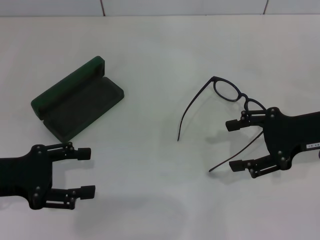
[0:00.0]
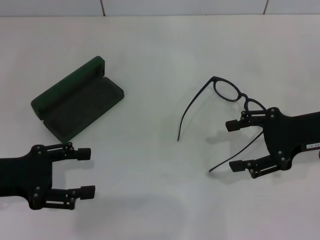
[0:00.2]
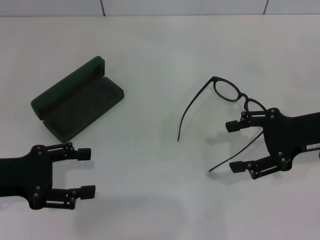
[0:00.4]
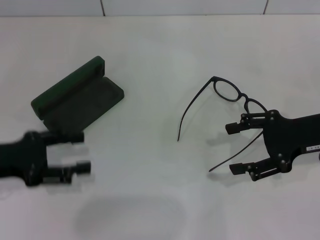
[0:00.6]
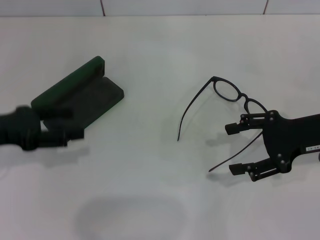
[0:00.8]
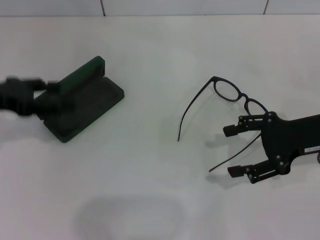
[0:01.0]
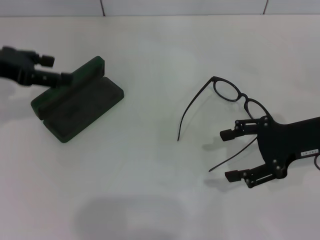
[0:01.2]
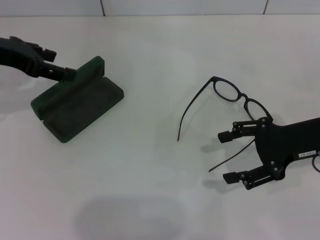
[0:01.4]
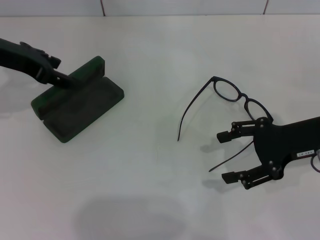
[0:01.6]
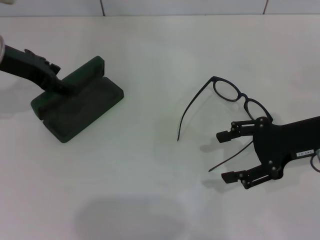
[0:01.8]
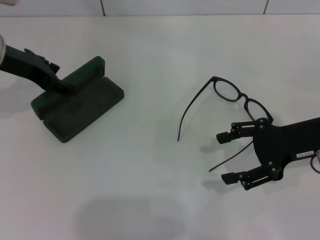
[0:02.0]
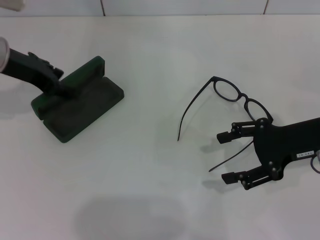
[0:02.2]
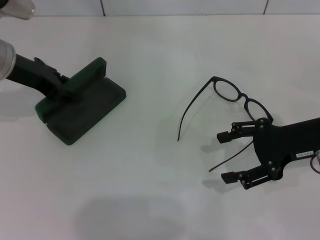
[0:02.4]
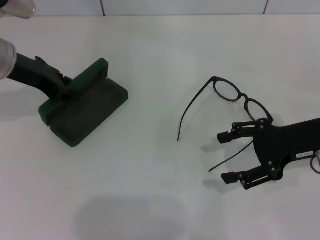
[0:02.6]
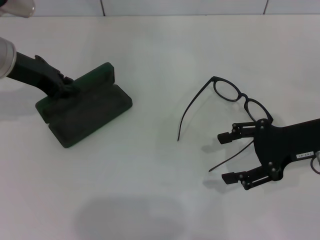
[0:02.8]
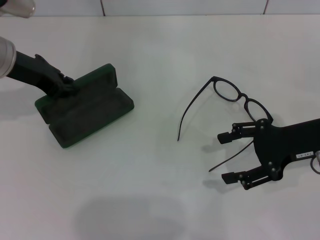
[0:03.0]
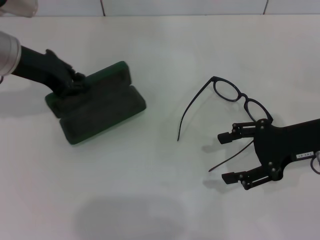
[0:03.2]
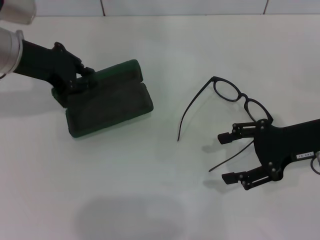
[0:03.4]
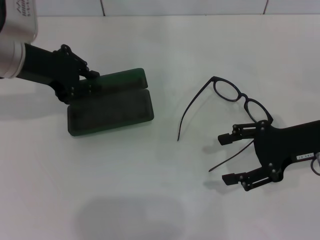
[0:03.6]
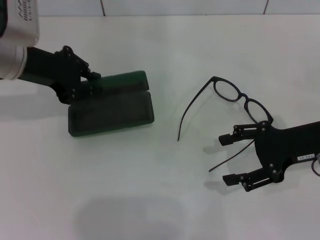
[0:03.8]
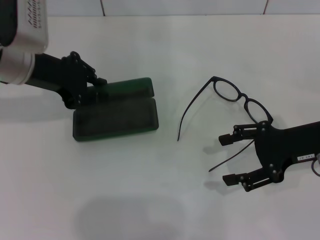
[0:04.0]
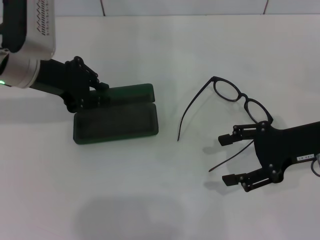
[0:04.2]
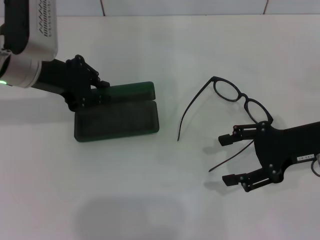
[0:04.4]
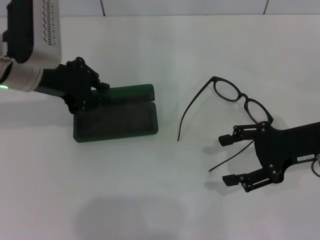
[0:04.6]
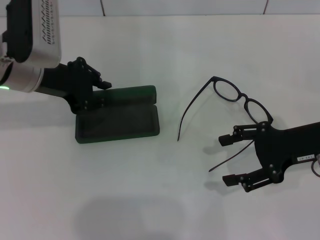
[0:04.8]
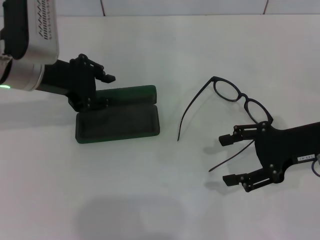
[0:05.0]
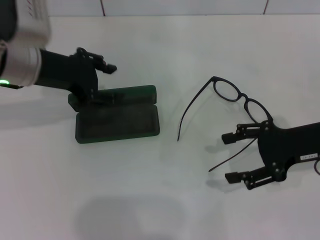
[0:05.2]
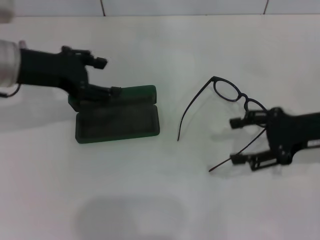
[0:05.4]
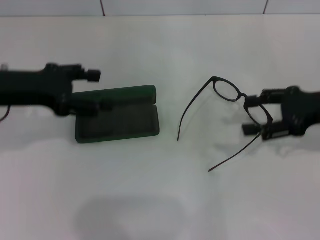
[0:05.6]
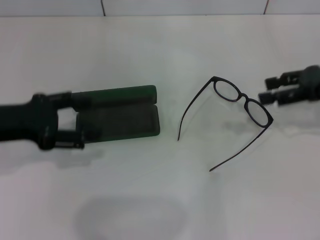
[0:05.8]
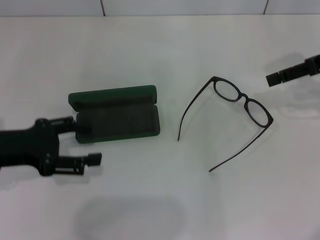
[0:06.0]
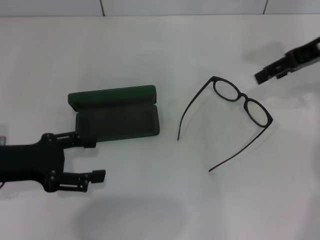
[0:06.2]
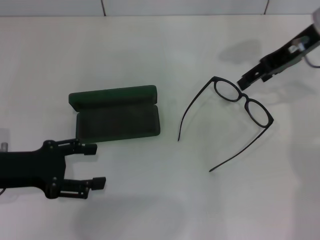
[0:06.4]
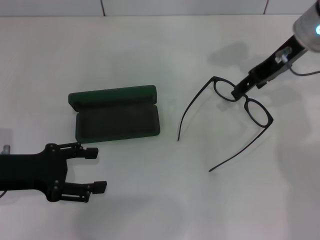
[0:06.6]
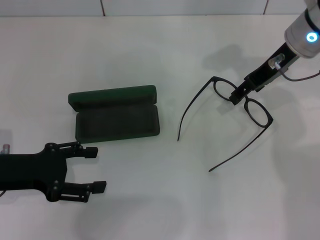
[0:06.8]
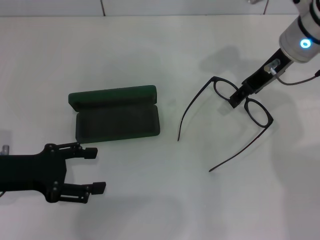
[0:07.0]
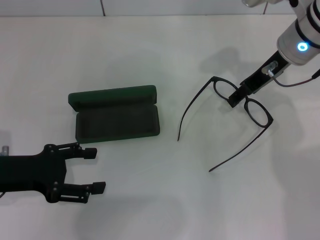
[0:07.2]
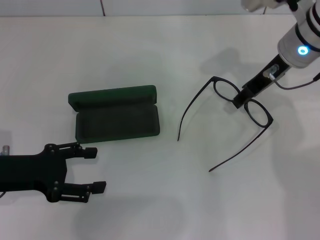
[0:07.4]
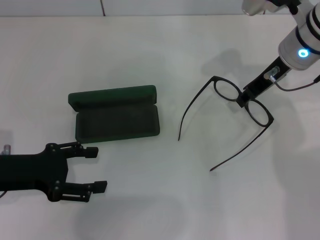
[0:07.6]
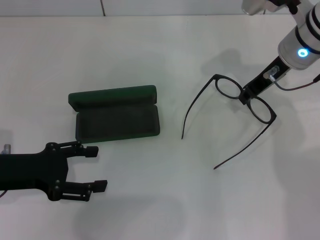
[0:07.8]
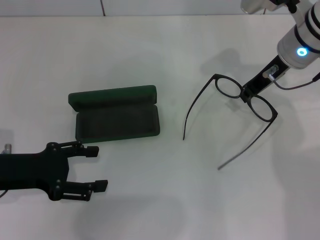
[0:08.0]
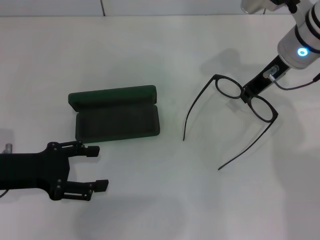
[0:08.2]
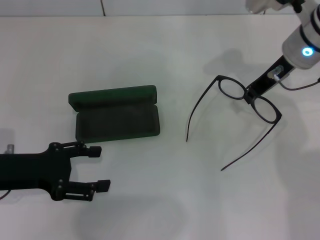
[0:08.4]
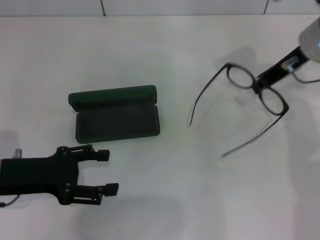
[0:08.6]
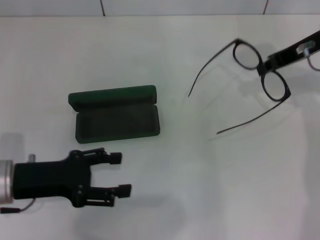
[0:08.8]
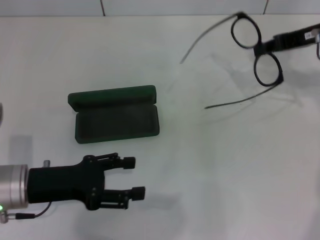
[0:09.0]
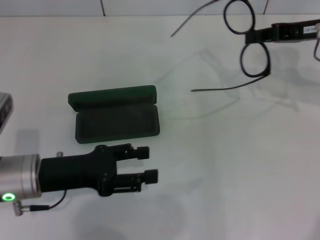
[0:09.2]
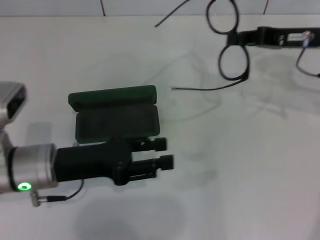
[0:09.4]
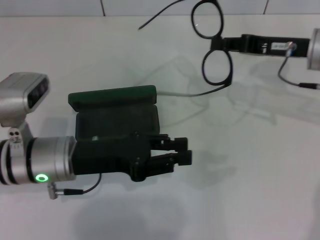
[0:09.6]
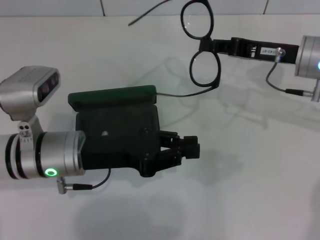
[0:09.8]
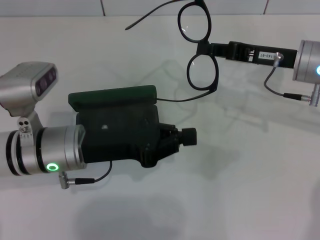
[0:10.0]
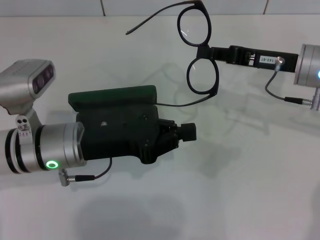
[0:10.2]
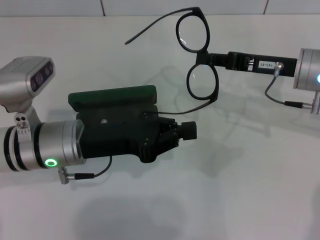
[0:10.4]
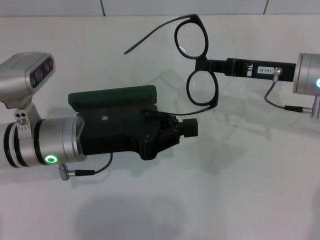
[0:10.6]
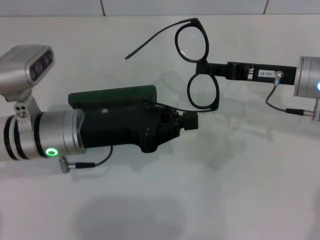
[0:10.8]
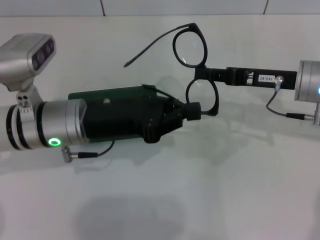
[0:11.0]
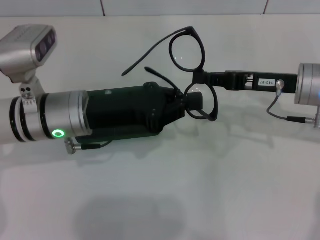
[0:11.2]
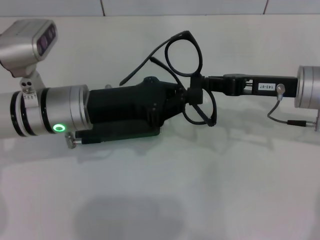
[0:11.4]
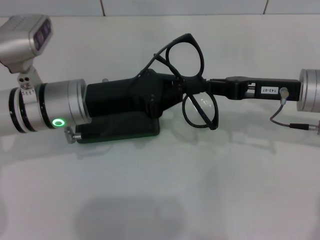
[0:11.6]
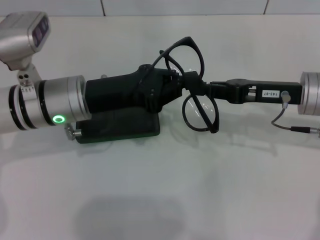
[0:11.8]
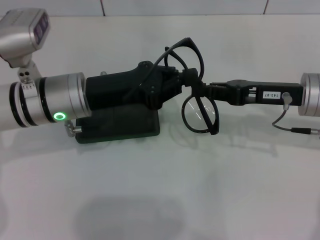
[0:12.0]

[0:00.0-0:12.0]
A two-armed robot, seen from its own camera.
Step, 0:00.0 to 0:02.4: Grab the glasses case with your left hand.
Step, 0:02.8 to 0:04.8: Place the glasses case in the center of the table with your left hand.
Step, 0:05.0 to 0:08.0: Grab the eyeglass frame with your right hand.
0:00.0 to 0:01.6: The left gripper moves forward and upward, roughly 20 cm.
0:01.6 to 0:03.0: The left gripper closes up.
0:04.4 to 0:06.0: The left gripper heads backward, to the left and downward, covering roughly 15 cm, and opens its fingers. Meanwhile the right gripper shifts some 15 cm upward and forward.
0:06.0 to 0:07.6: The right gripper travels to the left by approximately 10 cm.
0:07.6 to 0:09.0: The right gripper is displaced to the right by roughly 10 cm, and closes its fingers; the left gripper shifts by approximately 5 cm.
0:09.0 to 0:10.4: The right gripper is displaced downward by about 5 cm; the left gripper goes approximately 5 cm to the right, and closes.
0:10.4 to 0:12.0: The left gripper shifts by roughly 5 cm.

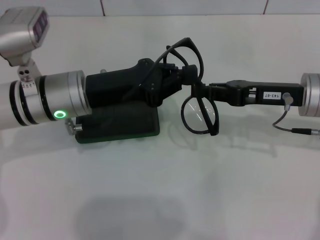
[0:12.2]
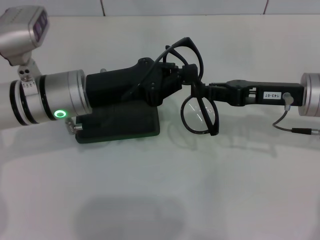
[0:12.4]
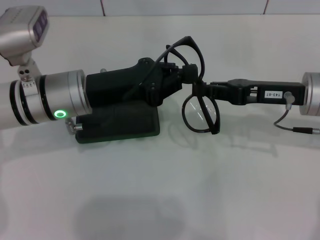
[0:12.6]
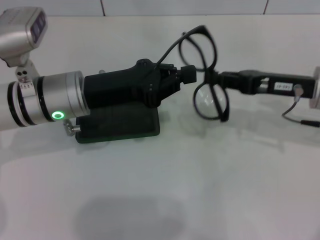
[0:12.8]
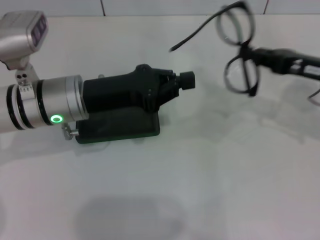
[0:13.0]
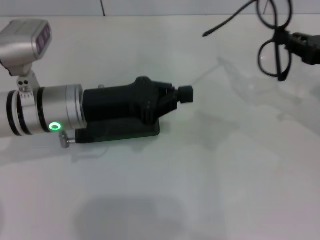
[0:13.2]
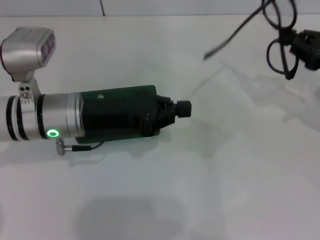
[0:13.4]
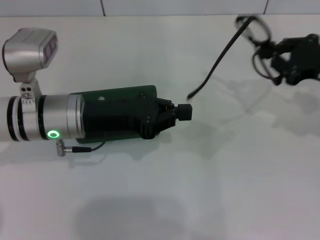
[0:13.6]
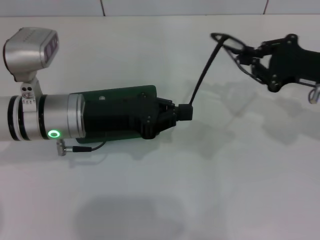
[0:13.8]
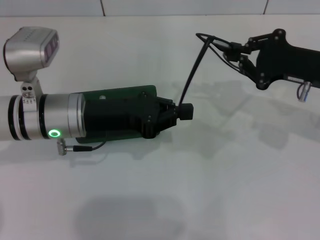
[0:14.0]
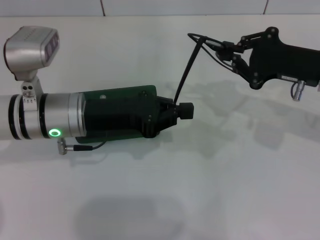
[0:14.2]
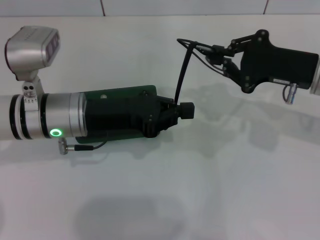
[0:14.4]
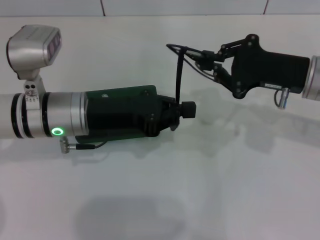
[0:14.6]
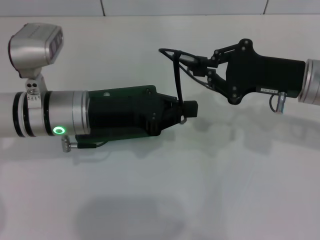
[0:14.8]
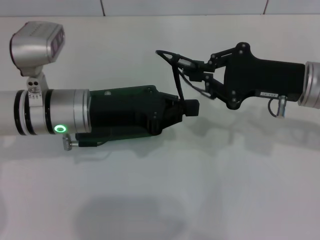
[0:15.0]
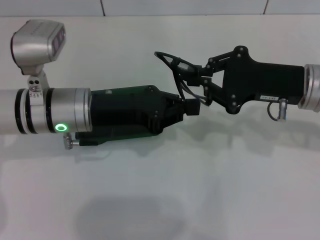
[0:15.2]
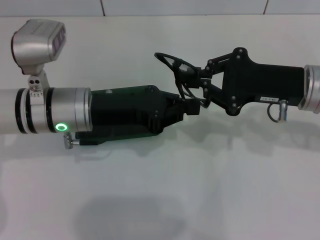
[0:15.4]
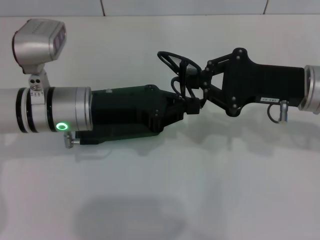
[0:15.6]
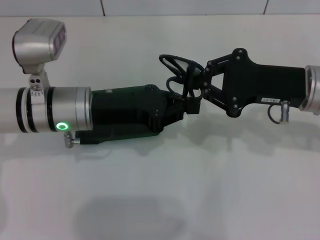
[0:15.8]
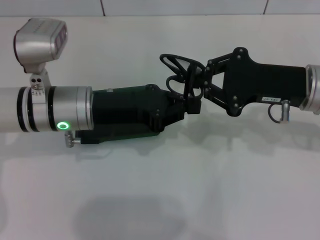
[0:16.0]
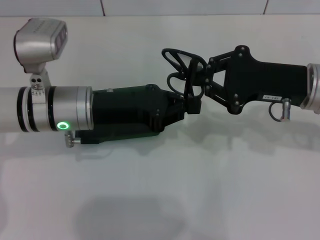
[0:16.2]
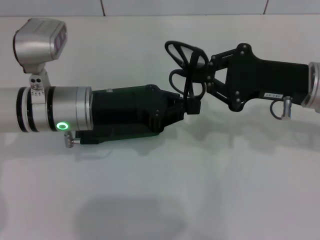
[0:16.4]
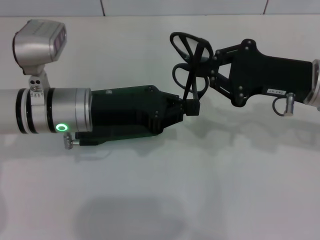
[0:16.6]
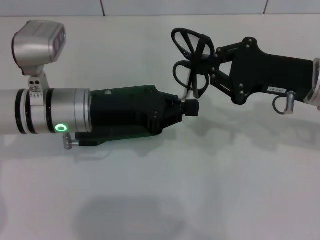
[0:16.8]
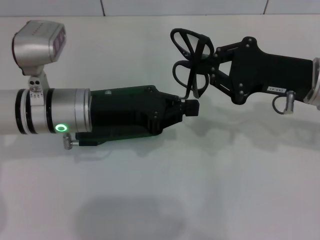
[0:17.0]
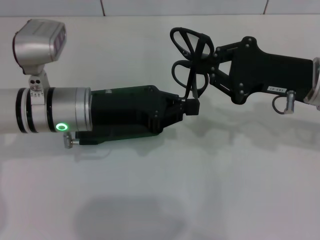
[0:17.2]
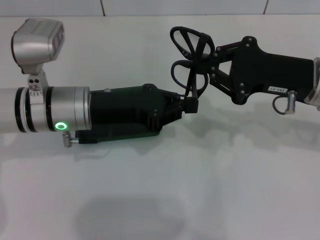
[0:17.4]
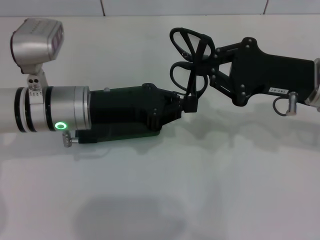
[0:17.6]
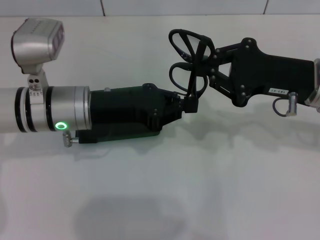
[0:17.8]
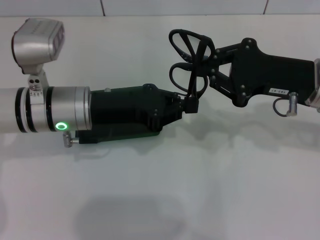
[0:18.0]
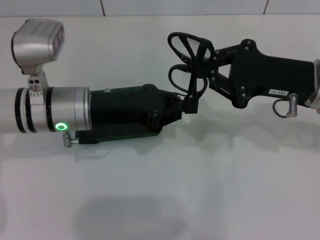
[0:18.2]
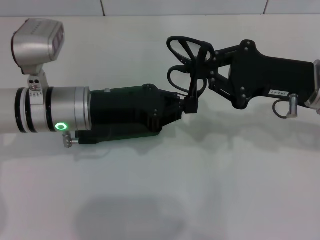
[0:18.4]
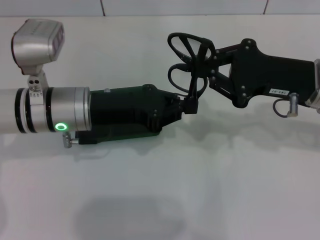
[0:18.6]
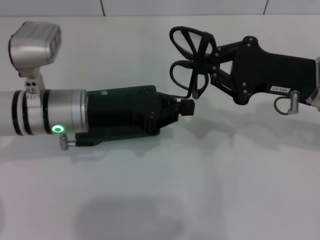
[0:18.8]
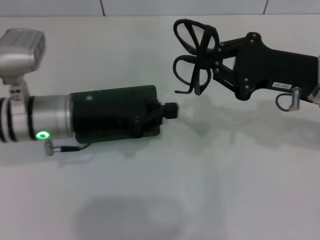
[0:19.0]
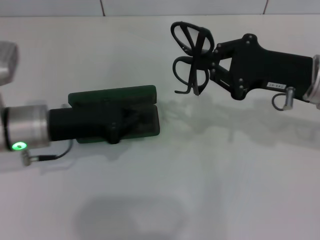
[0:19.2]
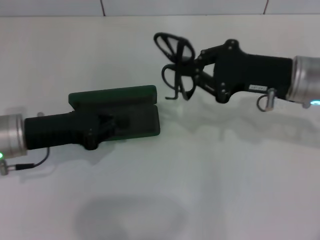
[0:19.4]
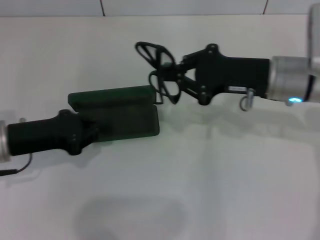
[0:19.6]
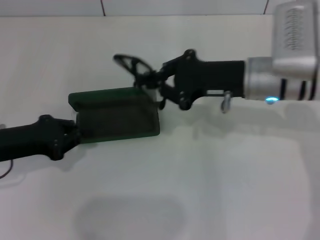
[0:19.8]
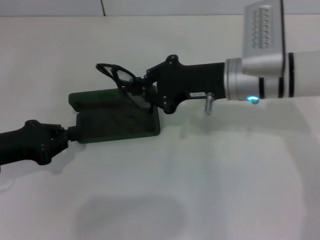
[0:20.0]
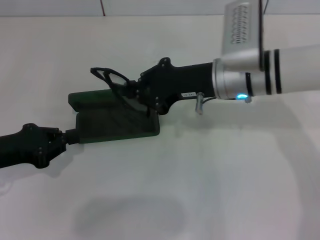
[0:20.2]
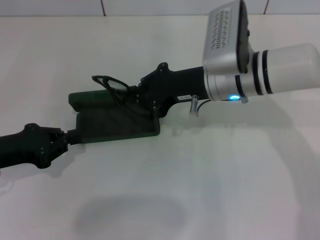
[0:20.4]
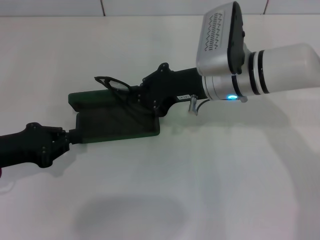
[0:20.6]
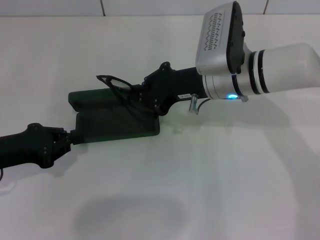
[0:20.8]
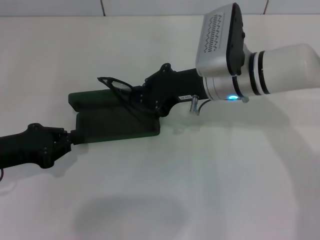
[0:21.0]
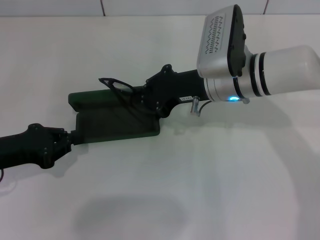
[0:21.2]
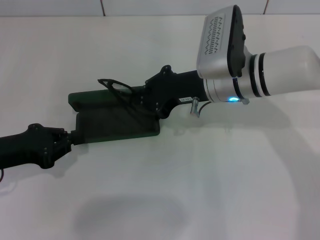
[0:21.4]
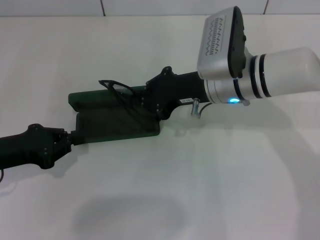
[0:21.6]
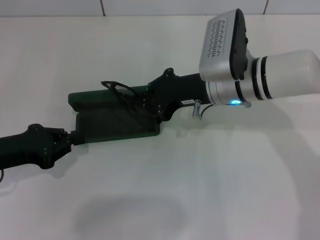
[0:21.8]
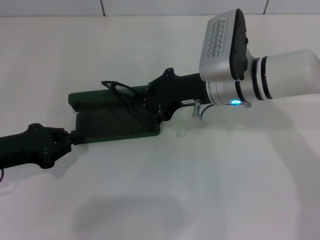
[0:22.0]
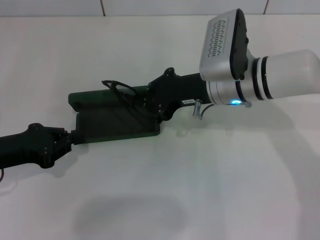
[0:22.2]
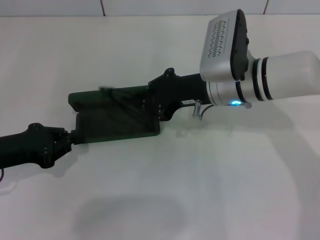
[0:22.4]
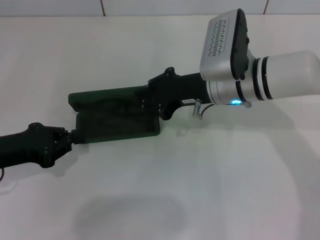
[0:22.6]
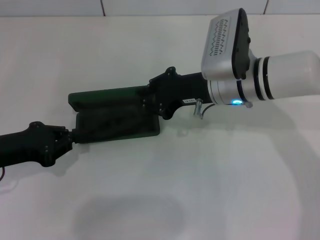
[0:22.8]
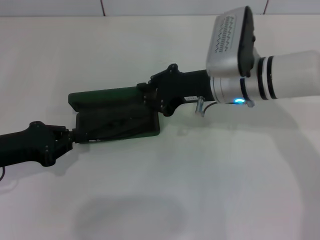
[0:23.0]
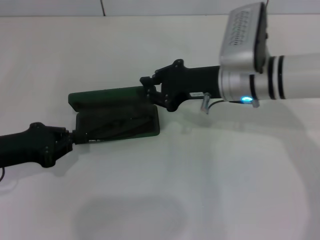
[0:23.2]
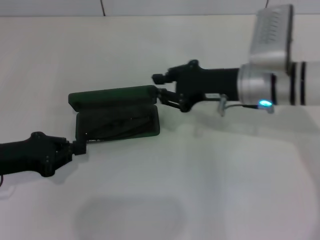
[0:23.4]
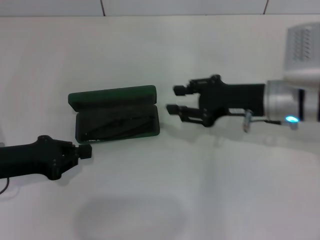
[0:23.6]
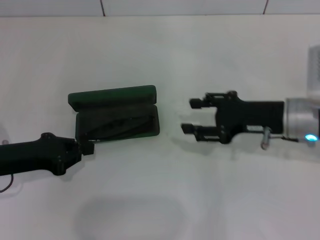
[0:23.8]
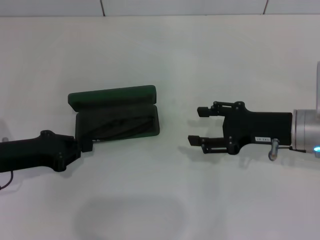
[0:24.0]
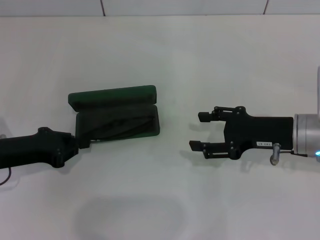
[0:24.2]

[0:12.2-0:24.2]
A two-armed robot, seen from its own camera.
Step, 0:12.2 to 0:18.4: Fold the frame with your left hand.
0:12.2 to 0:13.8: The right gripper moves to the right, about 5 cm.
0:13.8 to 0:15.2: The right gripper travels to the left by roughly 5 cm.
0:15.2 to 0:16.6: Neither gripper changes place.
0:16.6 to 0:18.2: Both grippers stay about where they are.
0:18.2 to 0:19.8: The left gripper moves to the left and backward, approximately 15 cm. The right gripper travels to the left by about 5 cm.
0:19.8 to 0:21.2: The right gripper heads to the left, covering approximately 5 cm.
0:21.2 to 0:22.6: Both grippers stay put.
0:22.6 to 0:24.2: The right gripper travels to the right and backward by approximately 15 cm, and opens its fingers.
